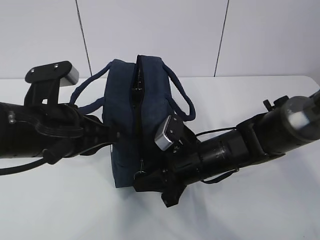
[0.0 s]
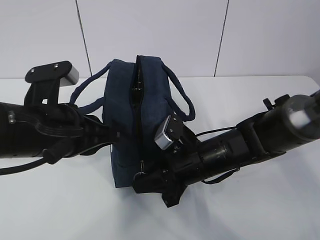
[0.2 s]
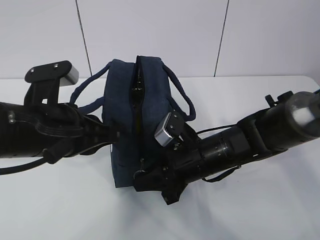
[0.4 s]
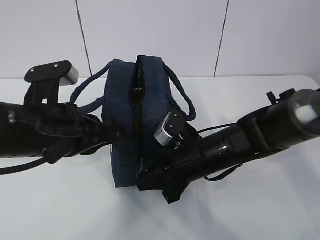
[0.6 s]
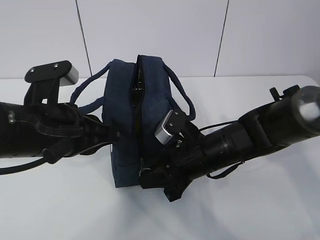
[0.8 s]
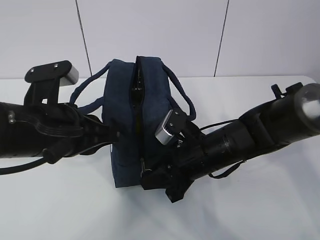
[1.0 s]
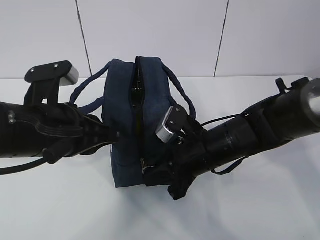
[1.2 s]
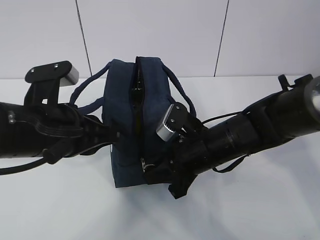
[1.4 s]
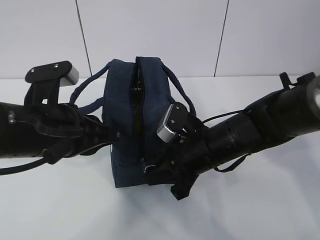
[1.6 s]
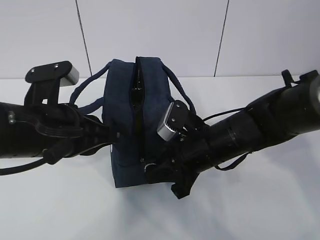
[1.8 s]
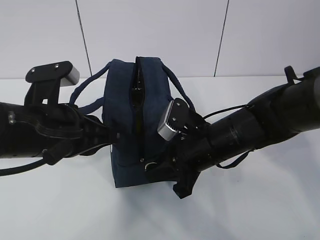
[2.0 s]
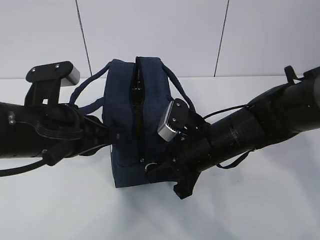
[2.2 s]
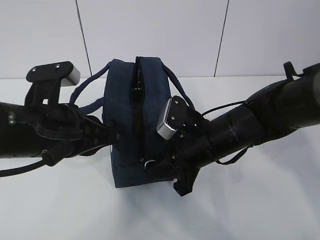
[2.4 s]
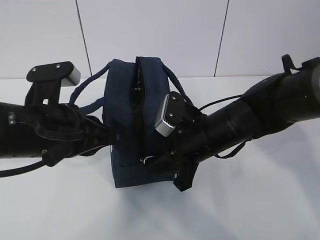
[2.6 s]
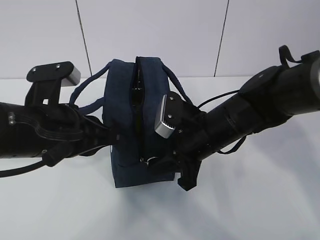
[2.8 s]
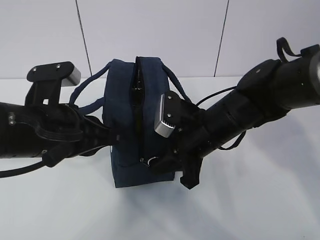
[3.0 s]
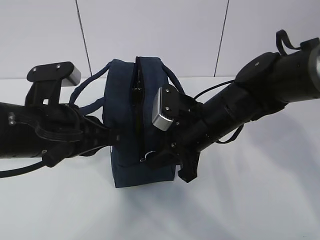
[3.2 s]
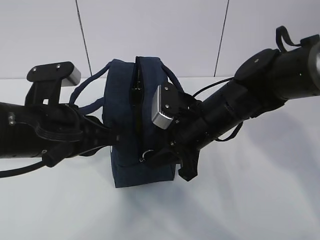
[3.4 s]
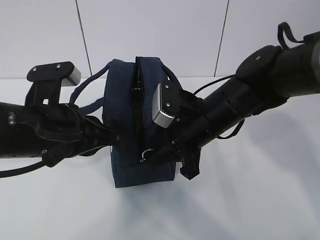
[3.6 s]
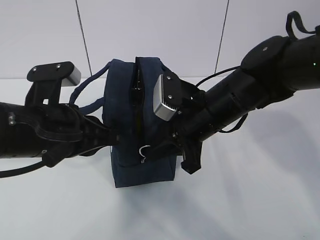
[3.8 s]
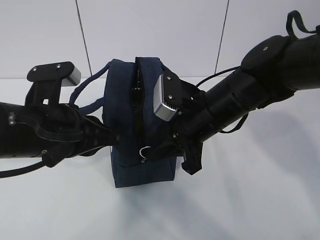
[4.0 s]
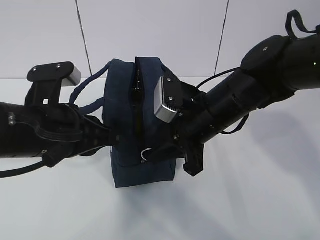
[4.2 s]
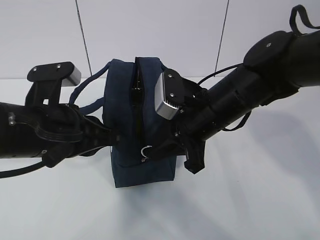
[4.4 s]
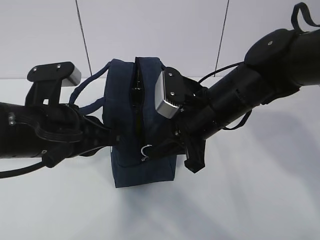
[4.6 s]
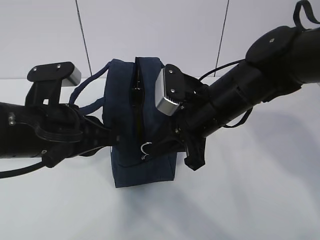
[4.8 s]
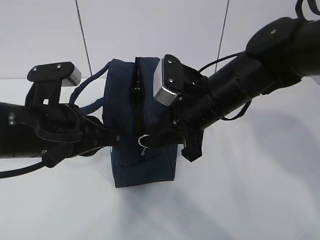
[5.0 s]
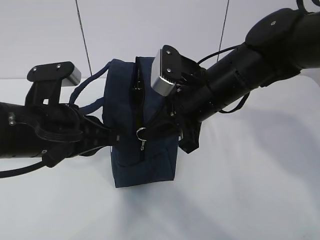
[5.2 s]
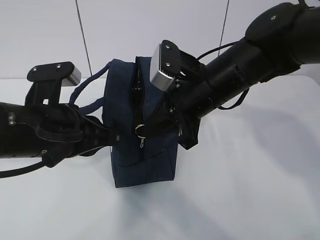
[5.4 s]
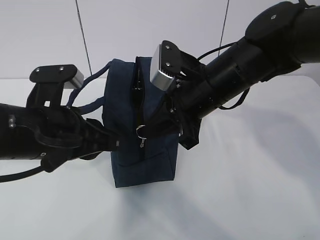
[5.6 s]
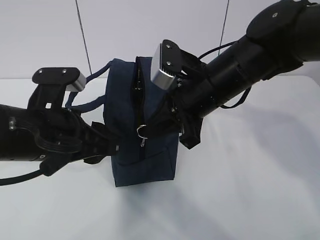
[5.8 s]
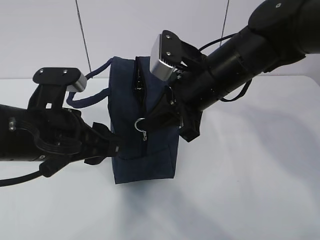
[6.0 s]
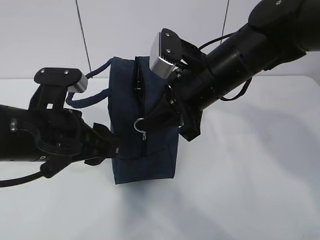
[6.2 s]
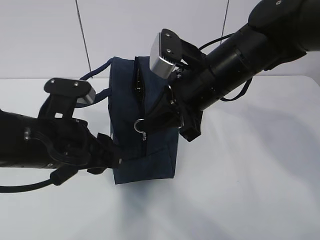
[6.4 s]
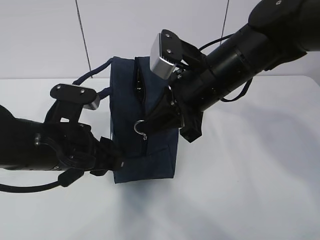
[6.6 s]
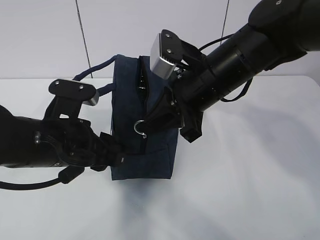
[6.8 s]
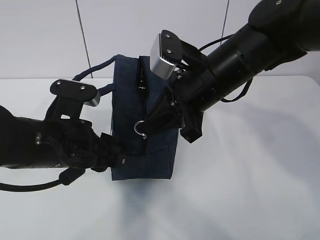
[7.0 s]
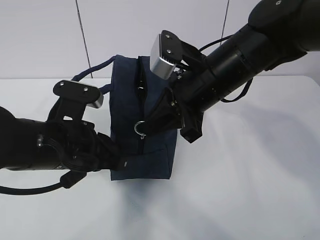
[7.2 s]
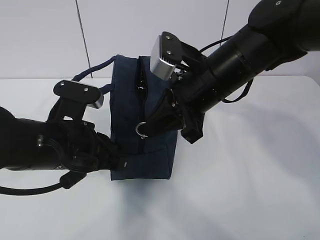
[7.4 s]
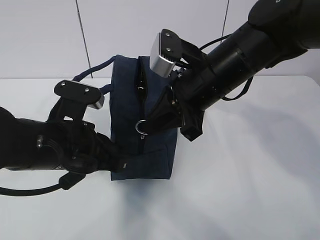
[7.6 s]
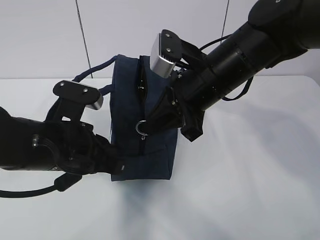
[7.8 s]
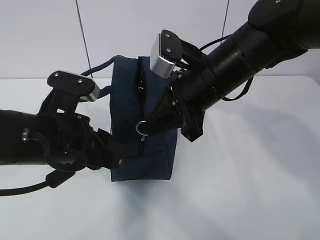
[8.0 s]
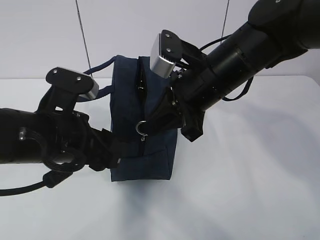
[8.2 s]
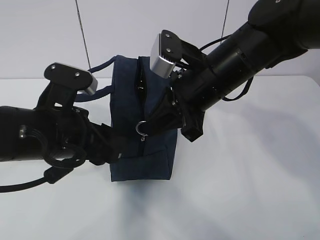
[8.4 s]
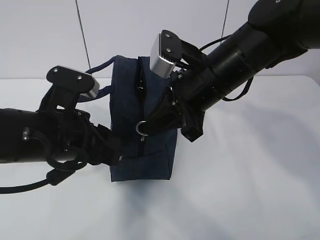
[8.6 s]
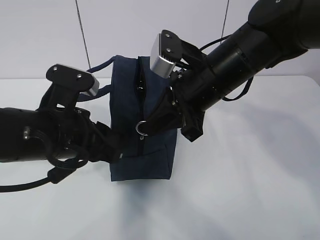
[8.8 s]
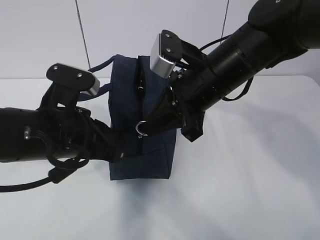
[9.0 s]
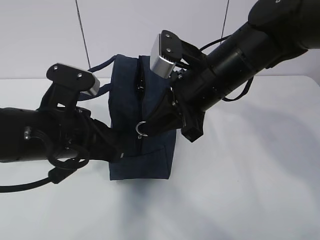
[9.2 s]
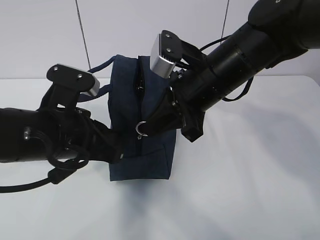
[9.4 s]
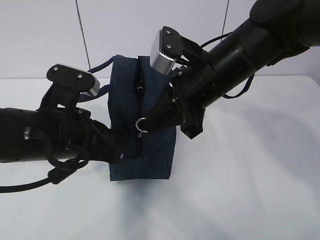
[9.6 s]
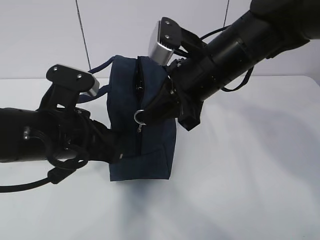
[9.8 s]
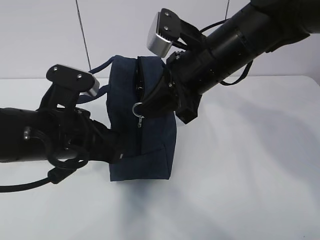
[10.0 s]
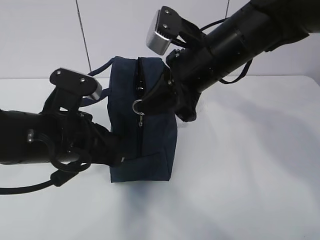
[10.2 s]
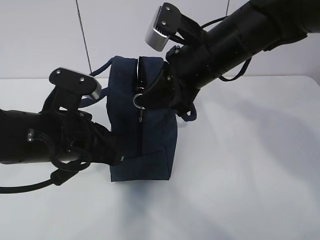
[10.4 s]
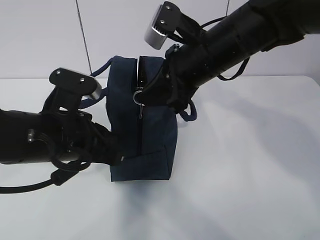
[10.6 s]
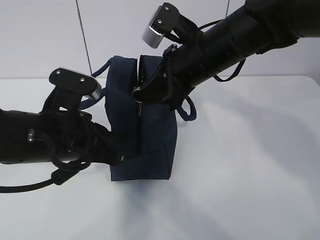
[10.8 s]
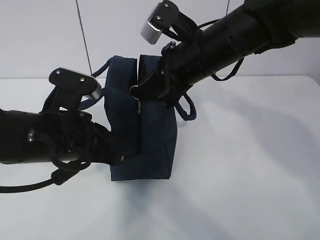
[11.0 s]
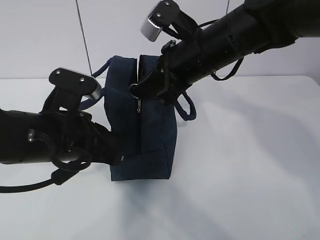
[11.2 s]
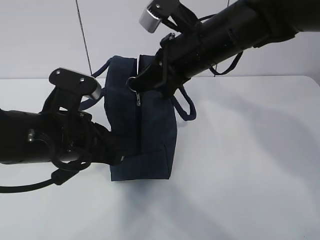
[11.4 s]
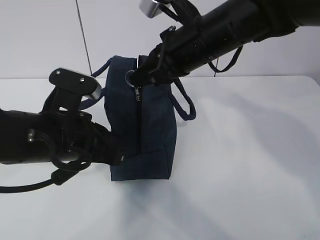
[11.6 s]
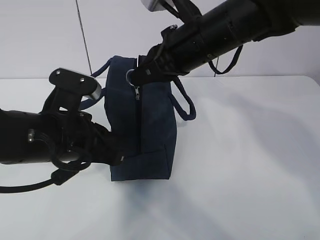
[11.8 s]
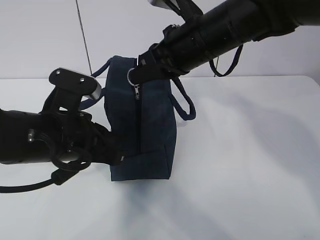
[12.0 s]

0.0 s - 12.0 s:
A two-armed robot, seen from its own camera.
Step, 4.6 s - 7.0 s: Pull the zipper with your right hand.
0.0 s - 1.6 s: There are only small adjustments of the grippers.
1.6 s - 3.0 s: There are only small adjustments of the grippers.
3.0 s - 4.4 s: The grippers move only a little.
4.4 s - 6.0 s: The left gripper opens.
6.0 s - 7.6 s: The left gripper closes up.
7.6 s - 9.0 s: The left gripper opens and closes again.
9.0 s - 10.4 s: The grippers make only small movements.

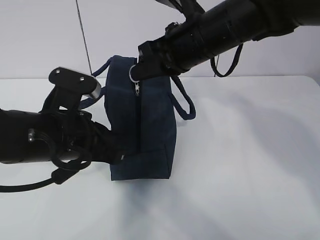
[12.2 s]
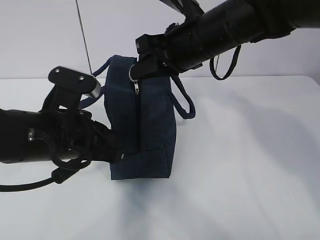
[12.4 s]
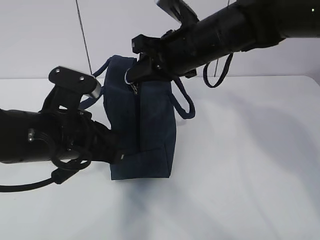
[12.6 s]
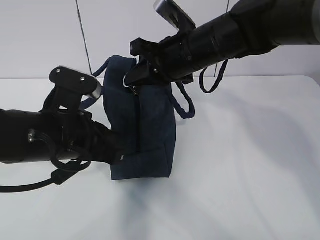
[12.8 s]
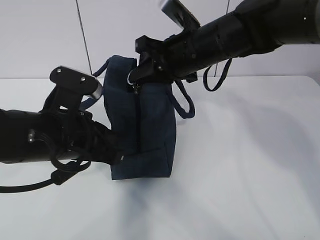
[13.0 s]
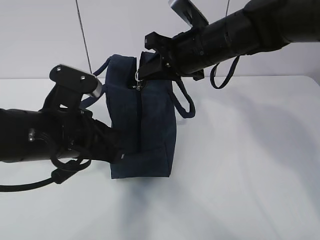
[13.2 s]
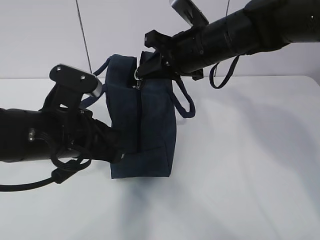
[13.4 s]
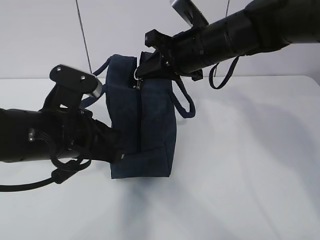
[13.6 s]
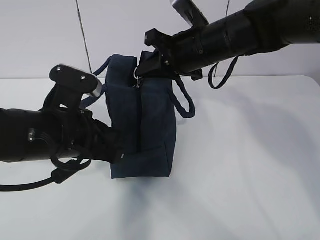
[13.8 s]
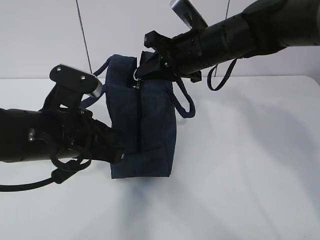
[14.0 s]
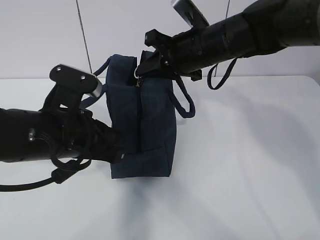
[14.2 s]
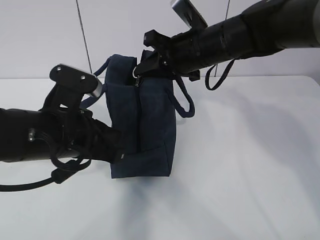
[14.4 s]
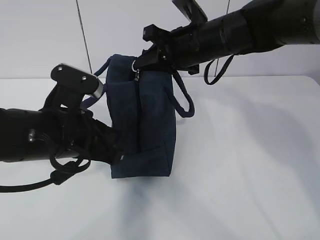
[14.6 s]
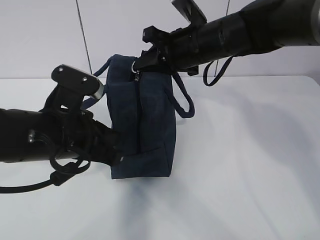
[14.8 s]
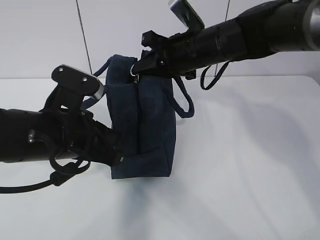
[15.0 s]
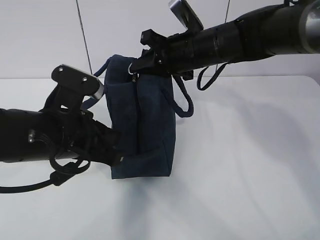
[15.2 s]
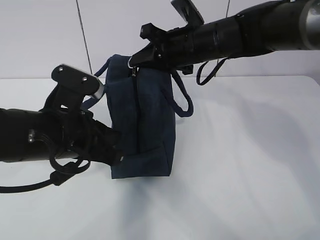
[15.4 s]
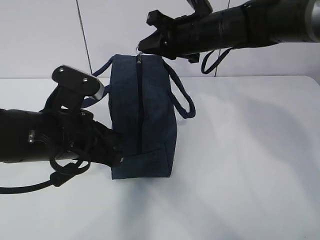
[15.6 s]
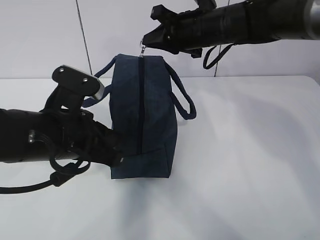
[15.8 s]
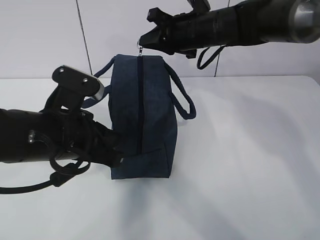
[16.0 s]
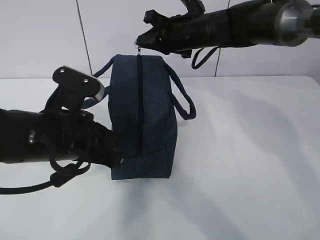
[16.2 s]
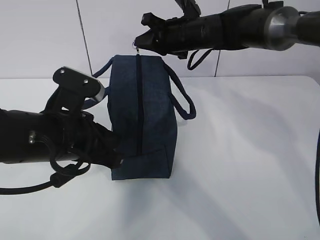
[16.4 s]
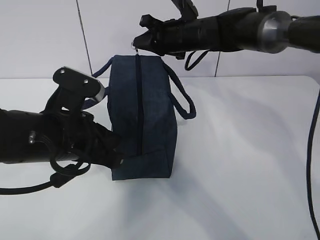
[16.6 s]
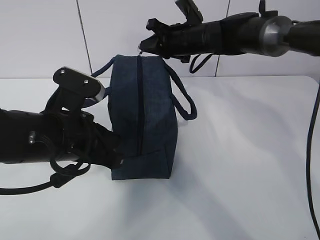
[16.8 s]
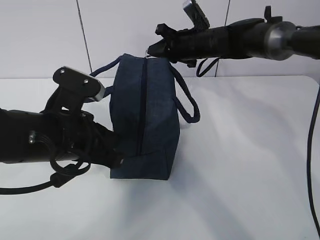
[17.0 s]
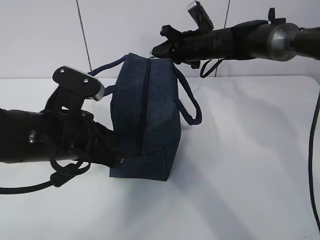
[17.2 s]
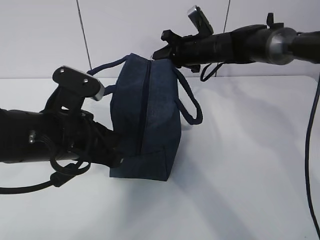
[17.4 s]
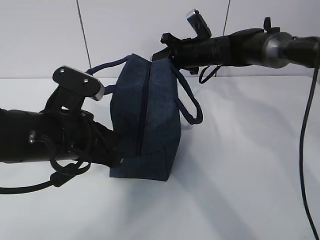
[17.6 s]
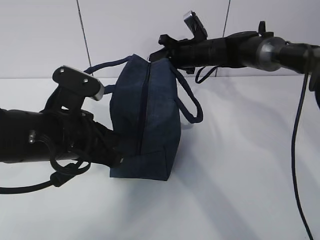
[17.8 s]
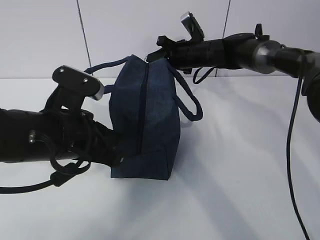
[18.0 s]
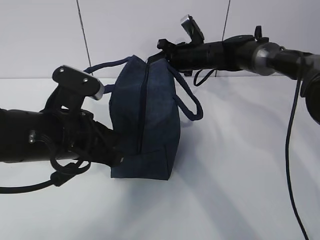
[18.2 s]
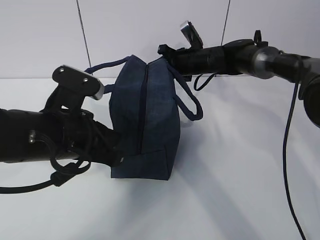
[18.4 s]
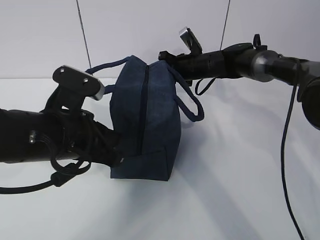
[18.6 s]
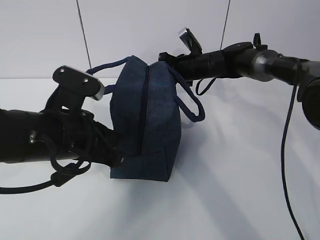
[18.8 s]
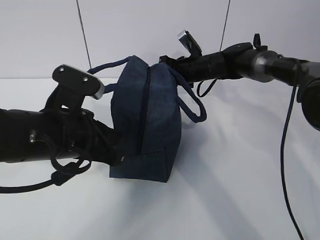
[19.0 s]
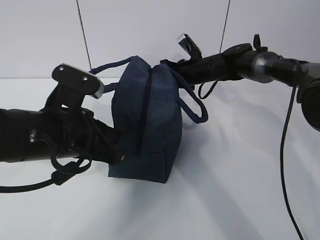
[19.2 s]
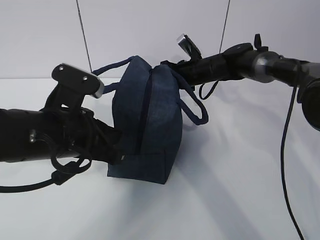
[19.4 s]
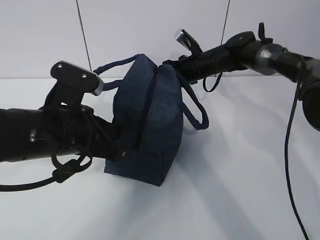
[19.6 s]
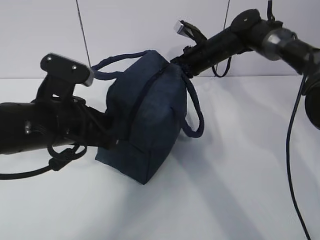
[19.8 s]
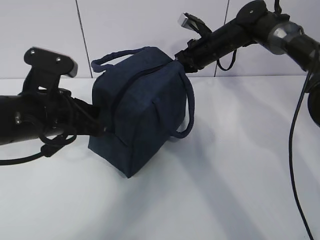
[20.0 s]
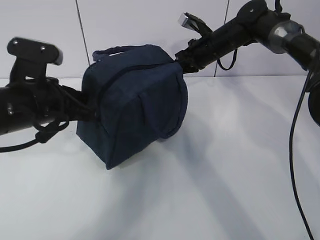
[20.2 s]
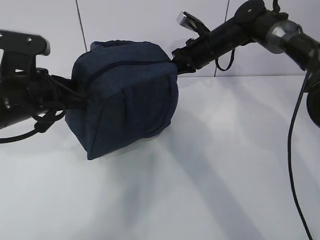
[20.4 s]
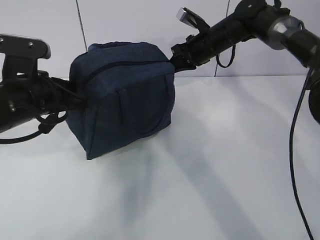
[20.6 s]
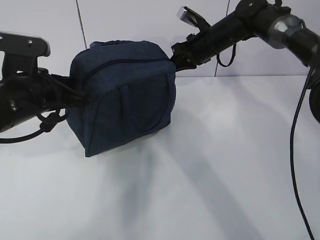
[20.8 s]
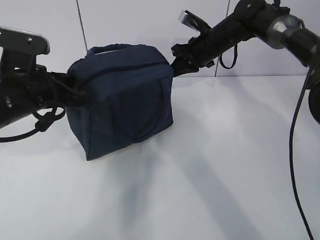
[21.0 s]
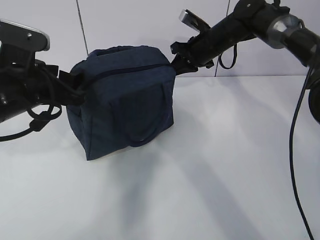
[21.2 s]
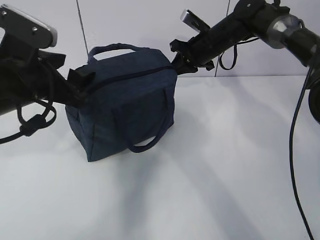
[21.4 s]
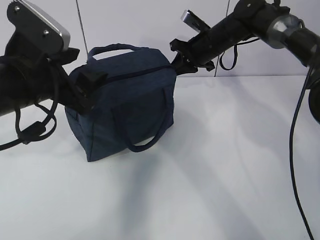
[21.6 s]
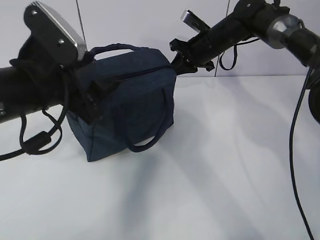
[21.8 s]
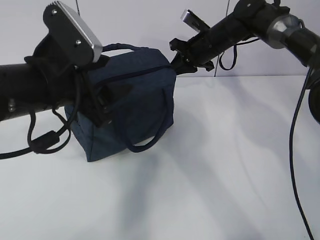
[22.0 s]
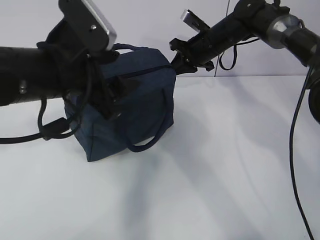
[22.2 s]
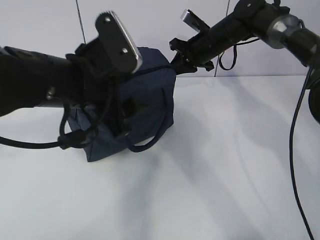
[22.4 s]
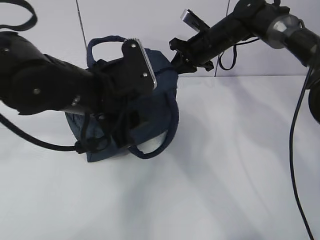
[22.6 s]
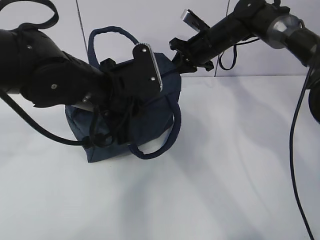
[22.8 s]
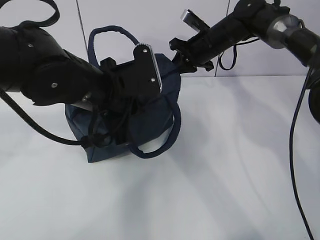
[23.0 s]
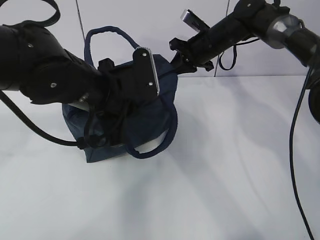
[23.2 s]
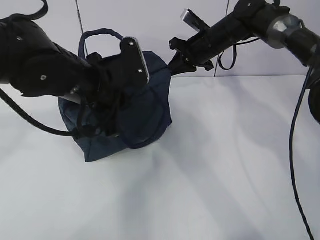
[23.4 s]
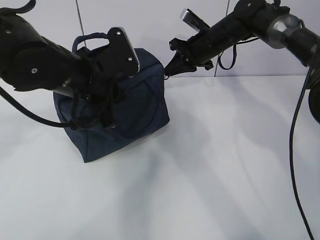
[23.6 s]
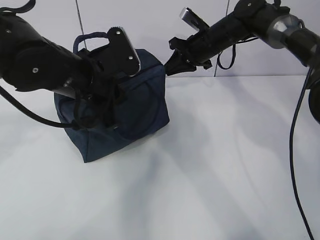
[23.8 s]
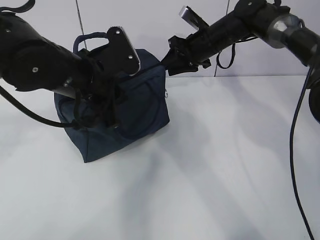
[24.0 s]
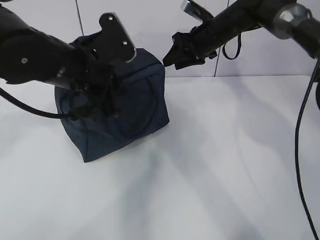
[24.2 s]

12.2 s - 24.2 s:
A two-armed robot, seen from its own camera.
13.8 s - 15.2 s: There are only small adjustments of the grippers.
15.2 s - 16.6 s: The right gripper travels forward by about 10 cm.
16.6 s - 18.2 s: The right gripper is displaced downward by approximately 5 cm.
19.8 s - 21.2 s: The left gripper shifts about 5 cm to the left, and opens its fingers.
21.2 s - 22.6 s: The left gripper shifts about 10 cm to the right.
22.6 s - 24.2 s: The left gripper closes. The right gripper opens its fingers.
